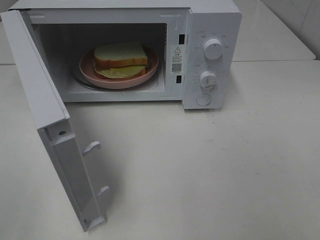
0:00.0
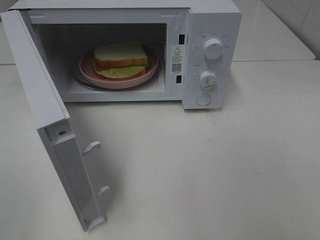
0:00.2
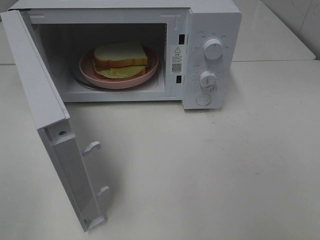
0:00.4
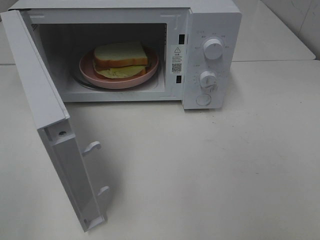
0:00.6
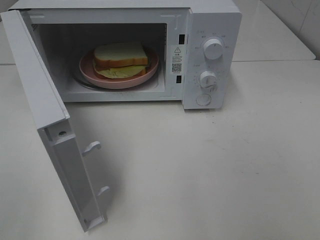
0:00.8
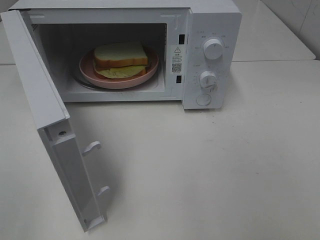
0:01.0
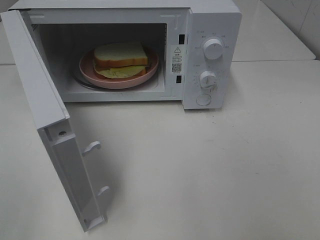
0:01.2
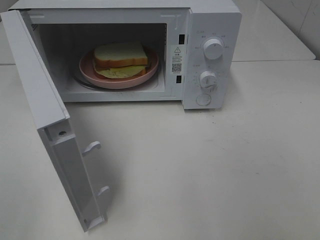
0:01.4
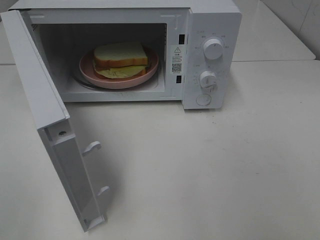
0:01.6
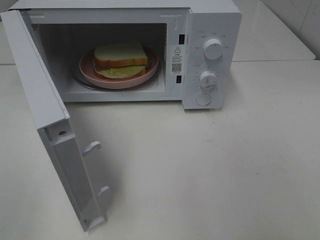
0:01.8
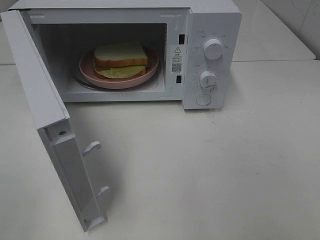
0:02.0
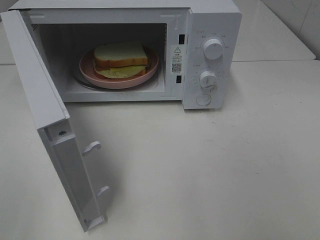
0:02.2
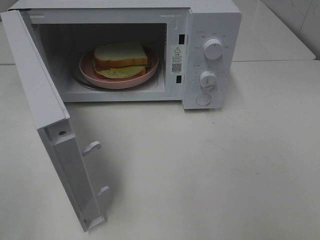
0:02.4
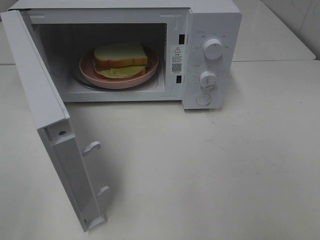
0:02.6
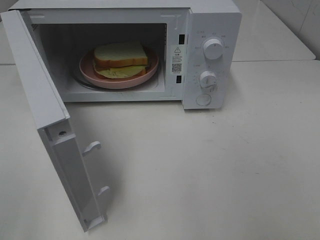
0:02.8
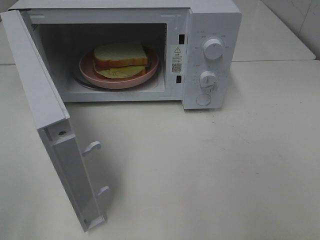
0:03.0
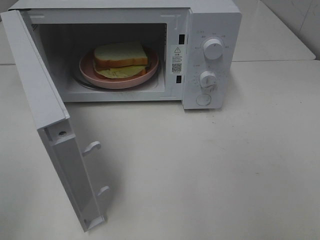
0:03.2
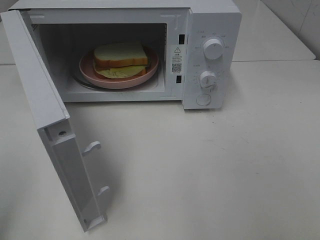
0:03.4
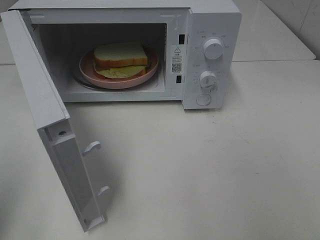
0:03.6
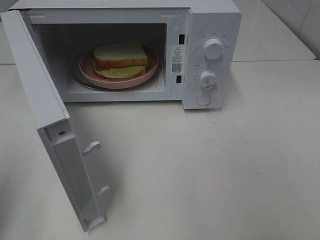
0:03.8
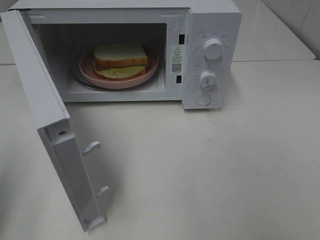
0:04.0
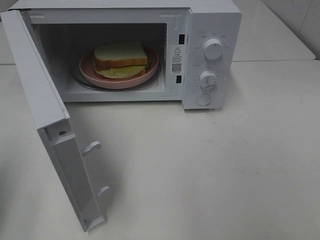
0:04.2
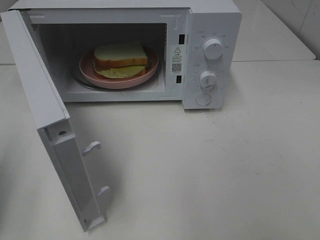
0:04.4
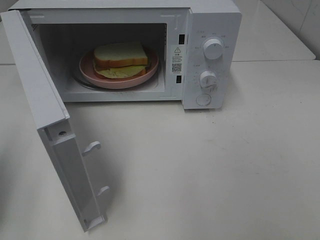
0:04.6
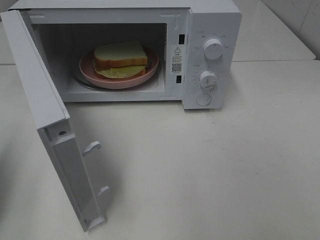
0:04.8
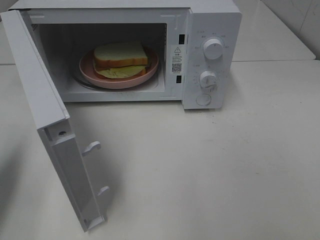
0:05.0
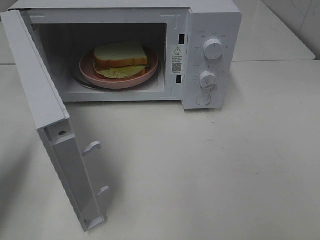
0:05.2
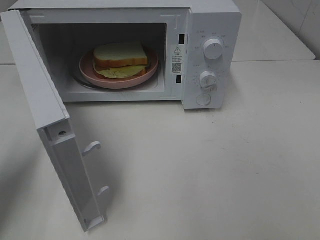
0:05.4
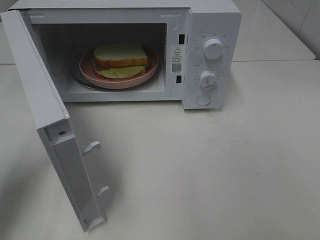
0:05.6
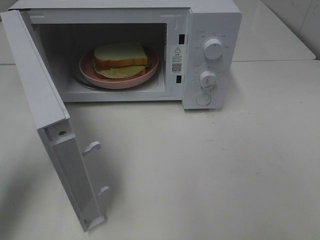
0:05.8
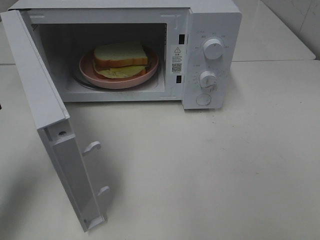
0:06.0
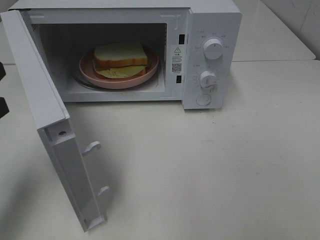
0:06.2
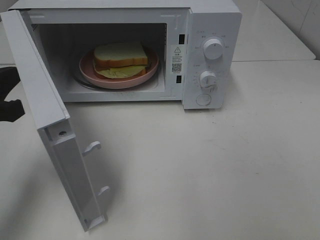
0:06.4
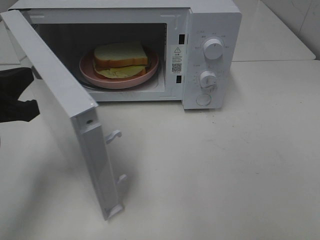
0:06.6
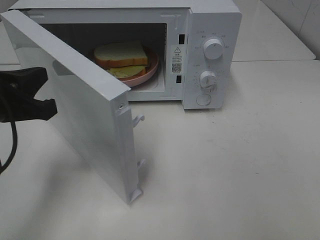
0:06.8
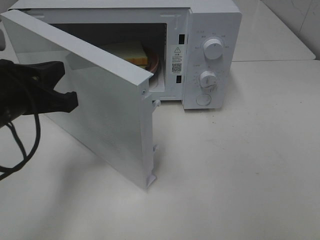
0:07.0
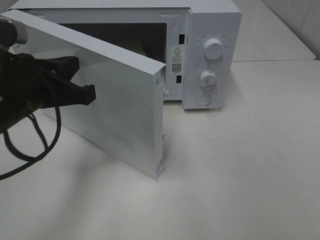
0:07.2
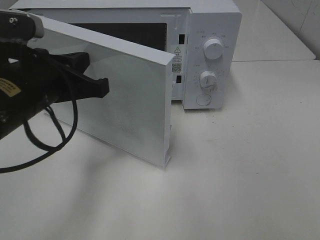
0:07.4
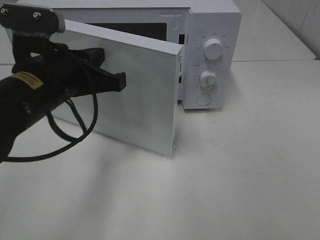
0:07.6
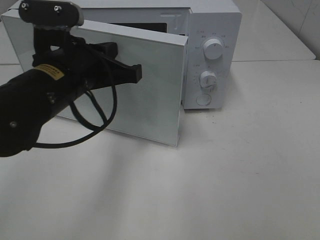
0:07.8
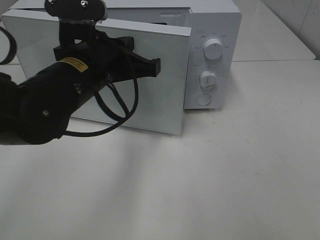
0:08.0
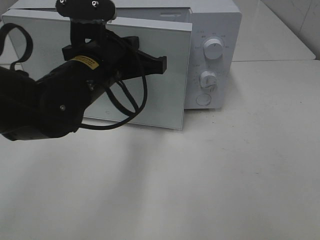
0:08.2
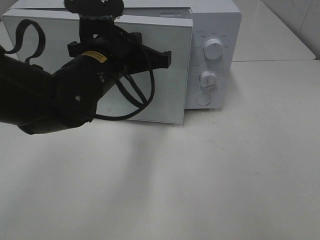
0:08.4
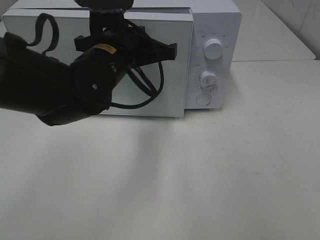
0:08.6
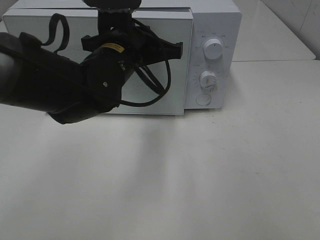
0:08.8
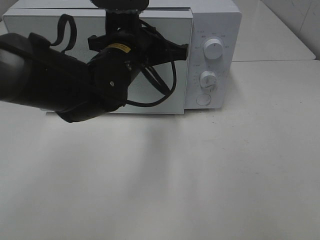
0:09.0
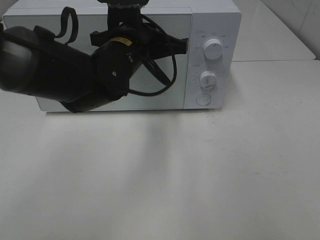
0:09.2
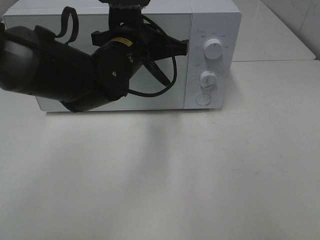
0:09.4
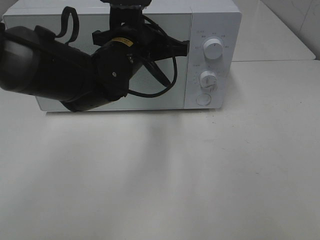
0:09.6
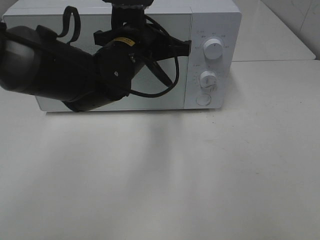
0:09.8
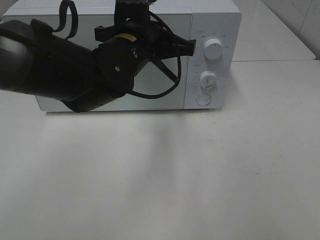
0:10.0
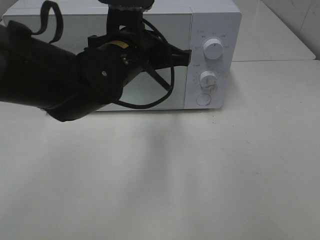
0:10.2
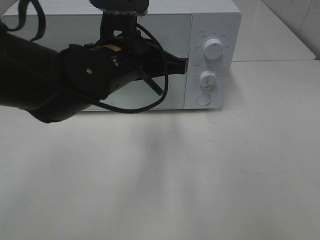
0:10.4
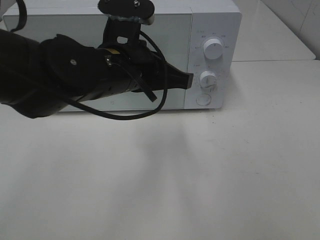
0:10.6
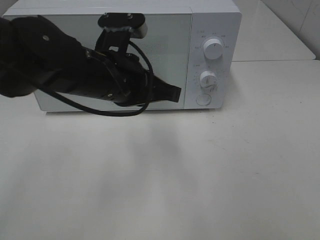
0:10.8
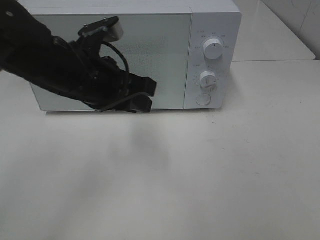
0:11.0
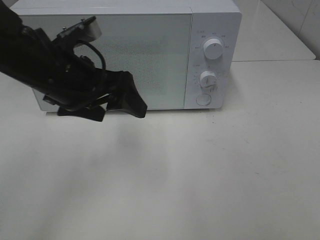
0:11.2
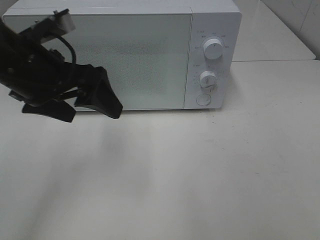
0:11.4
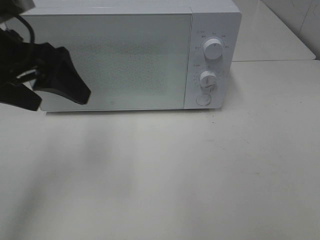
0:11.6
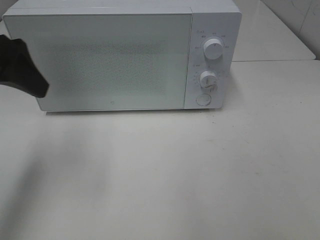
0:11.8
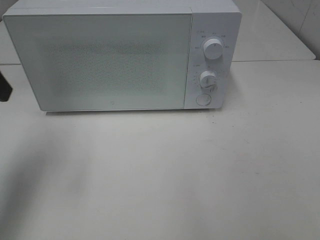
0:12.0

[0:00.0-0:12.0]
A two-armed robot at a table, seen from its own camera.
Task of the whole recording: Heat Sandwich.
Step, 0:00.0 to 0:10.0: Left hand: close the microwave door.
0:04.4 to 0:06.0: The left gripper moves to the right and forward, approximately 10 cm.
0:06.0 to 0:07.6: The left gripper moves to the right, about 15 cm.
0:07.6 to 0:09.0: The left gripper is displaced to the right and forward by roughly 10 cm.
0:09.0 to 0:10.4: The grippers make only small movements.
0:10.4 to 0:12.0: The left gripper is displaced to the left and upward by about 25 cm, and opens.

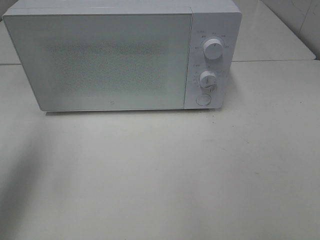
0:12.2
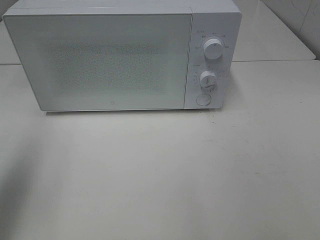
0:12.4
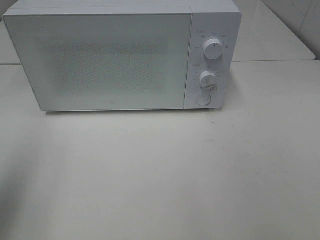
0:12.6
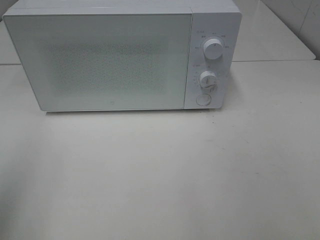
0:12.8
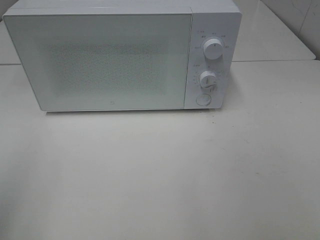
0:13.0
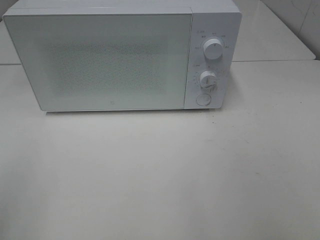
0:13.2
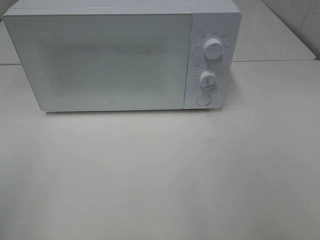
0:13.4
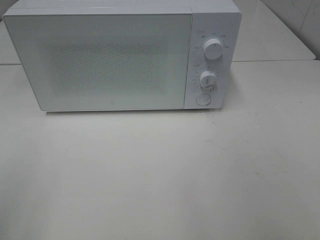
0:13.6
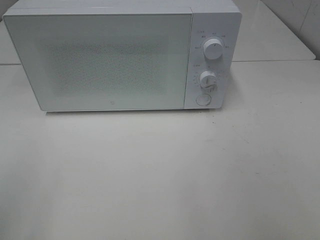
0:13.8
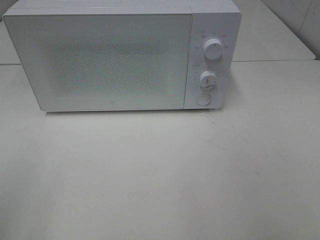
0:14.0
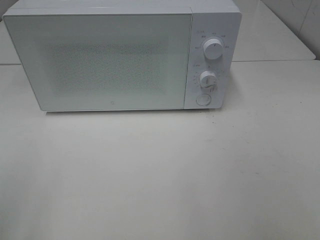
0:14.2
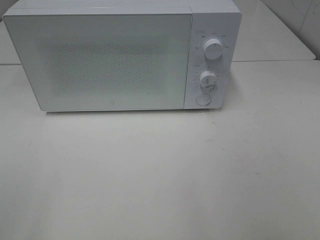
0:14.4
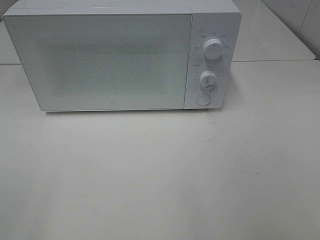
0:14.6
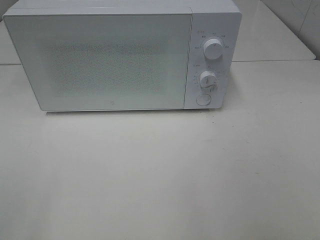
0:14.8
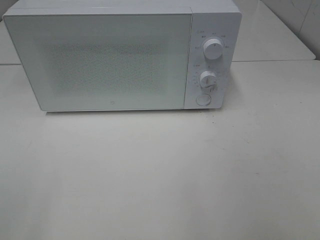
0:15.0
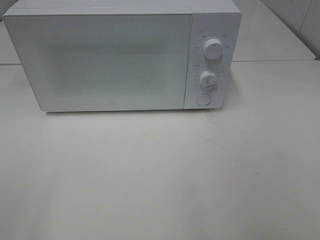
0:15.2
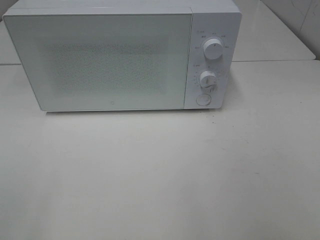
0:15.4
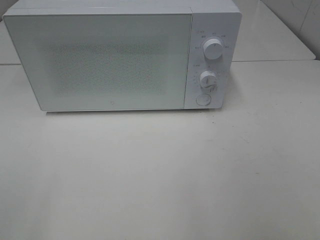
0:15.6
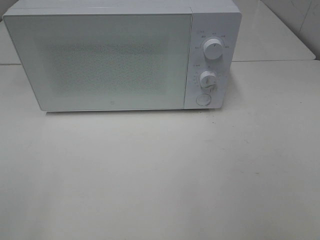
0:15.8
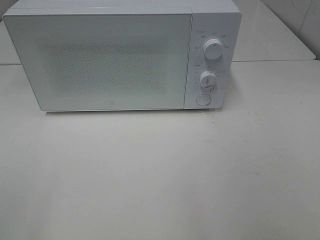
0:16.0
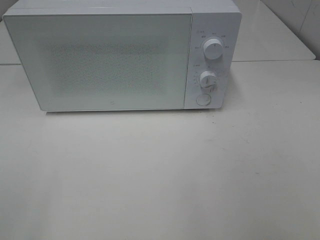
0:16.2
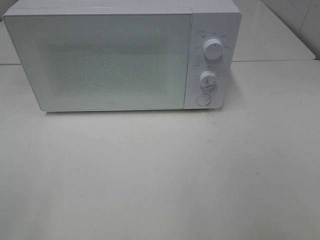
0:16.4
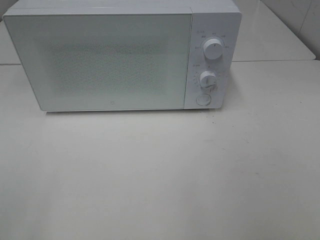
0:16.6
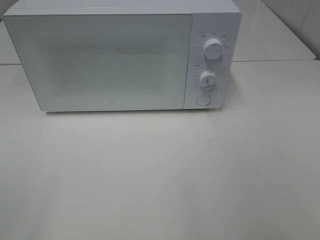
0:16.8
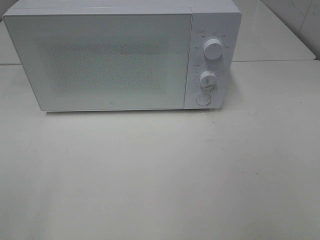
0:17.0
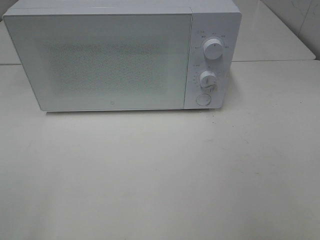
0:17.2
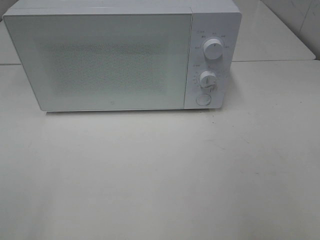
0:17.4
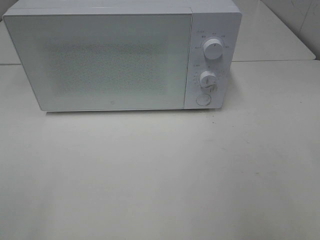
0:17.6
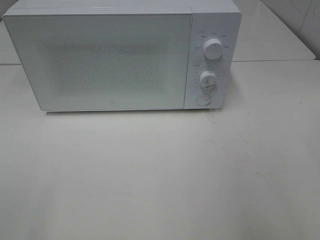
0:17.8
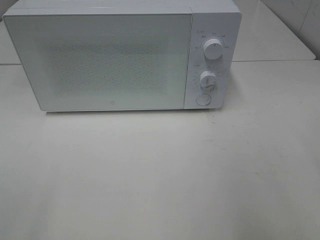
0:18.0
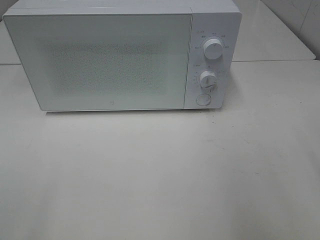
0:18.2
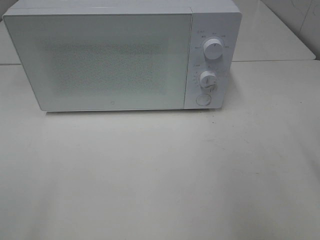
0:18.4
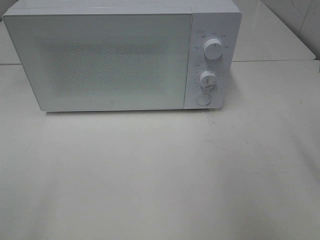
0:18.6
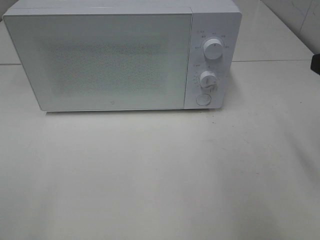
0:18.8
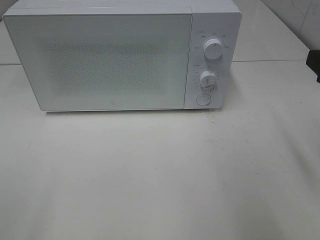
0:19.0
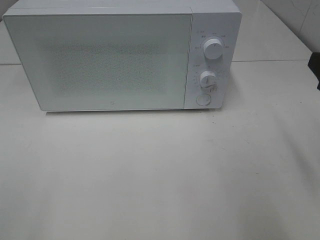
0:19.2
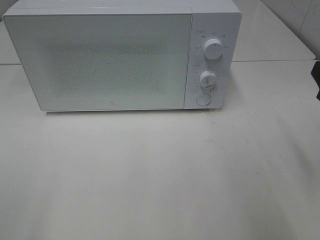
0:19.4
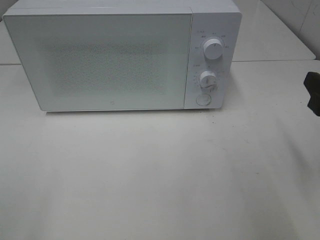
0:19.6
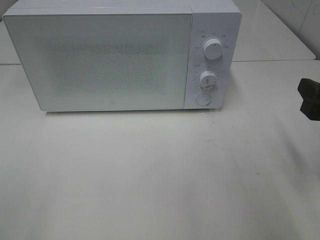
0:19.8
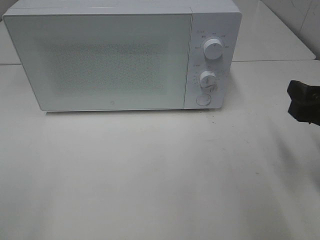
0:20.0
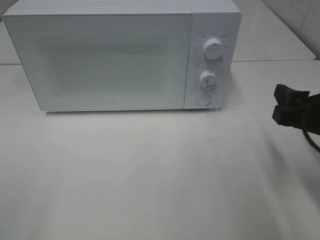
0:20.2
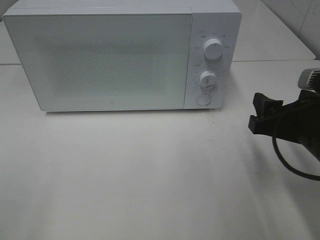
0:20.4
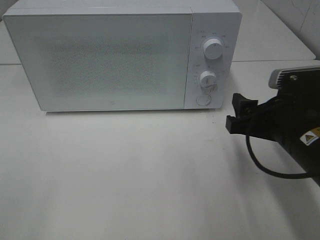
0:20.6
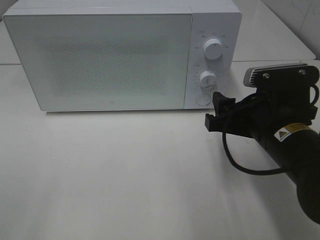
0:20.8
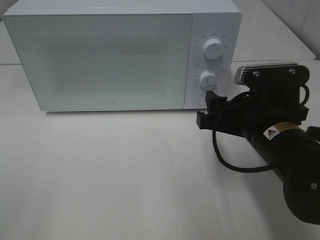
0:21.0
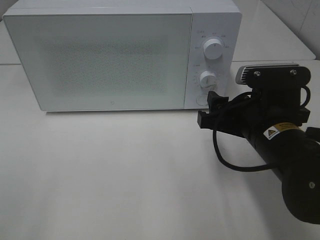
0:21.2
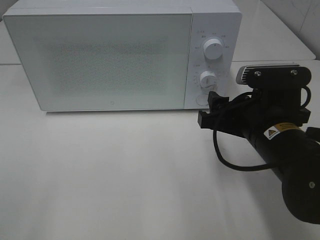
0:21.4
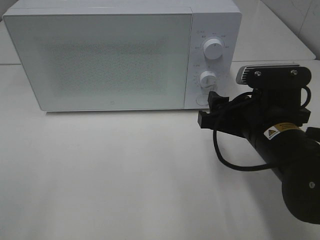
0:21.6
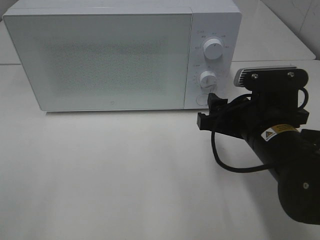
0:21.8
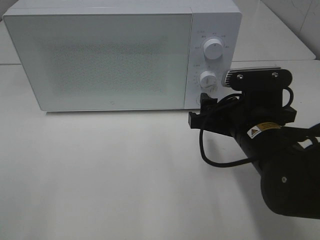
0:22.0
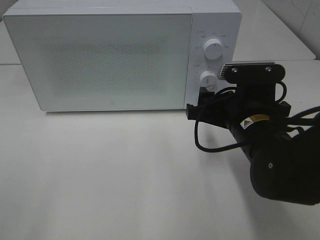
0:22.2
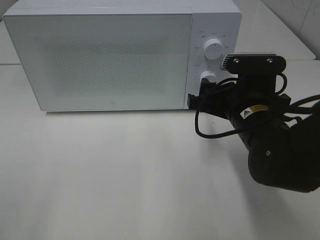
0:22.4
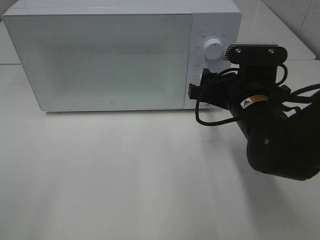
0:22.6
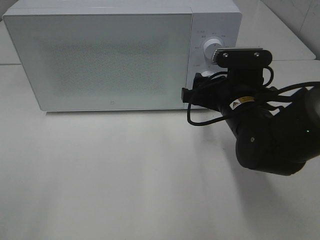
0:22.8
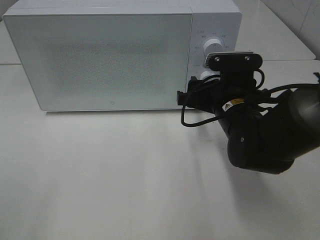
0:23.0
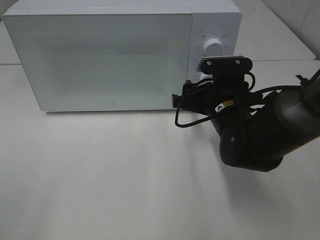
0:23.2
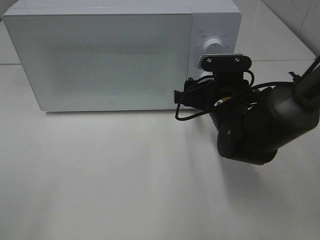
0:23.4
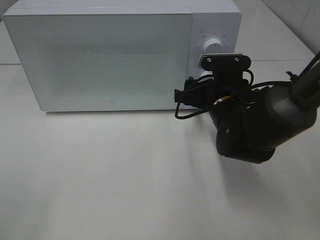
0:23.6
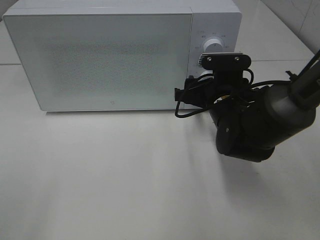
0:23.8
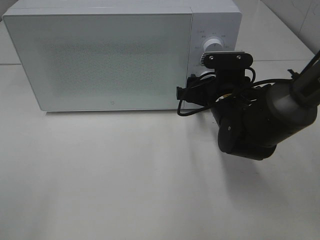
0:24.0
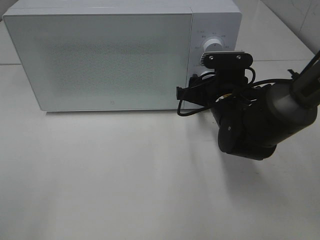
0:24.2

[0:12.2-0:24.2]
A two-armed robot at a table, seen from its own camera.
Task of the whole recording: Heat Sandwich.
0:12.2 to 0:13.8: The left gripper shifts some 15 cm backward.
0:15.2 to 0:16.6: The two grippers keep their place.
0:18.2 to 0:19.8: The right gripper travels downward by approximately 10 cm.
0:19.8 to 0:21.2: The right gripper heads to the left, covering approximately 15 cm.
0:21.2 to 0:22.6: The right gripper goes about 5 cm forward.
0:22.6 to 0:24.2: The right gripper is displaced forward by roughly 5 cm.
